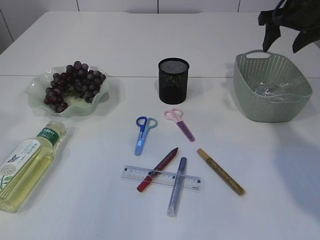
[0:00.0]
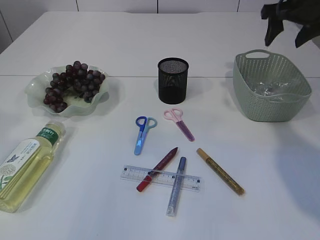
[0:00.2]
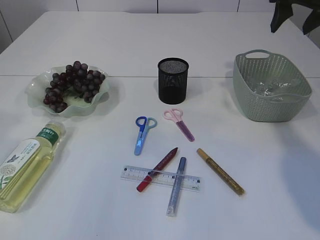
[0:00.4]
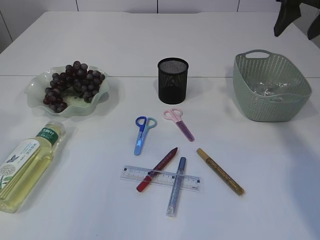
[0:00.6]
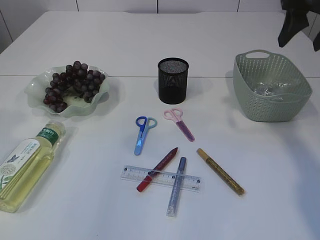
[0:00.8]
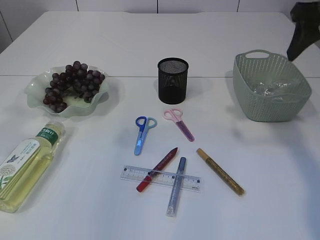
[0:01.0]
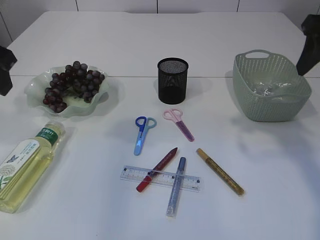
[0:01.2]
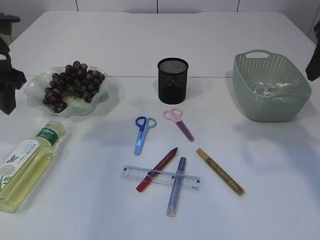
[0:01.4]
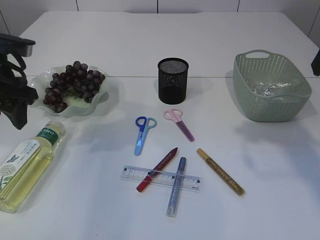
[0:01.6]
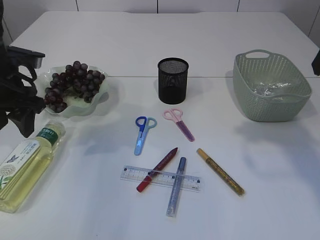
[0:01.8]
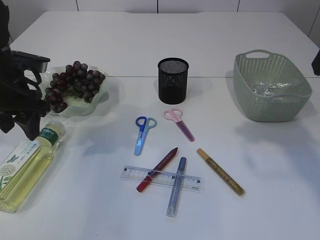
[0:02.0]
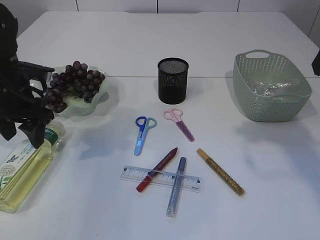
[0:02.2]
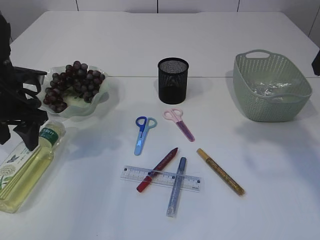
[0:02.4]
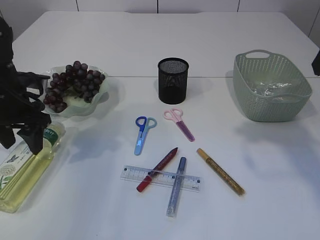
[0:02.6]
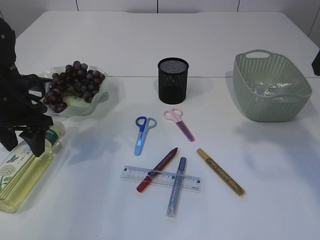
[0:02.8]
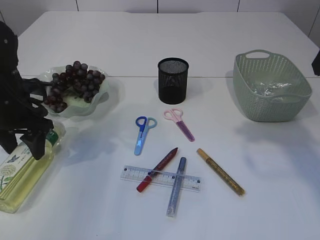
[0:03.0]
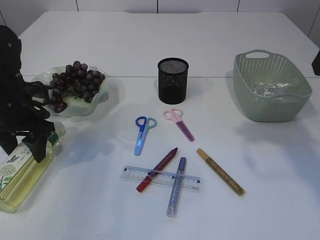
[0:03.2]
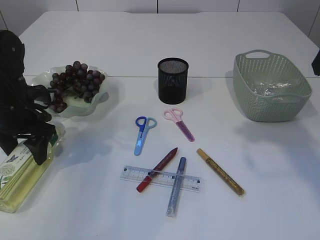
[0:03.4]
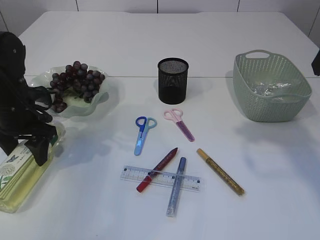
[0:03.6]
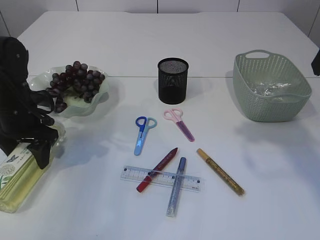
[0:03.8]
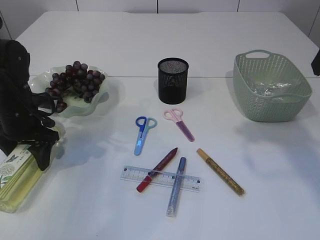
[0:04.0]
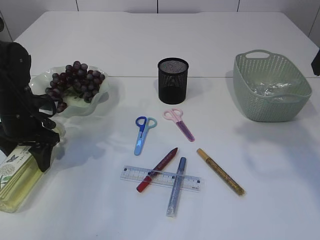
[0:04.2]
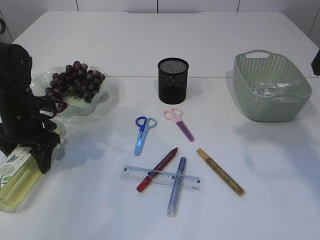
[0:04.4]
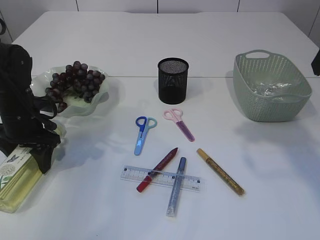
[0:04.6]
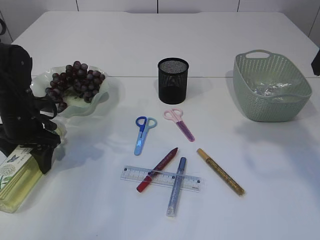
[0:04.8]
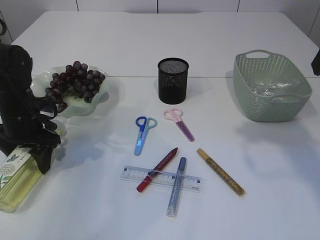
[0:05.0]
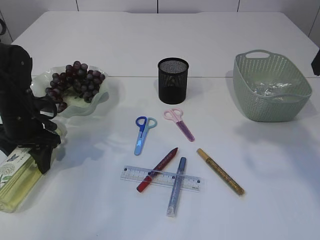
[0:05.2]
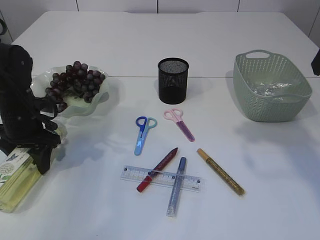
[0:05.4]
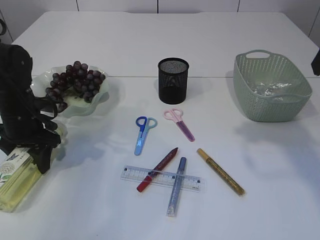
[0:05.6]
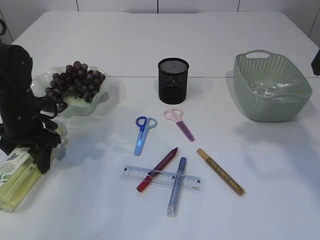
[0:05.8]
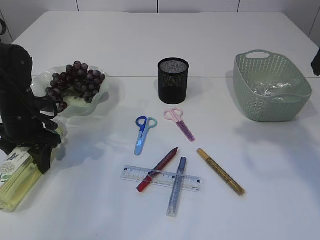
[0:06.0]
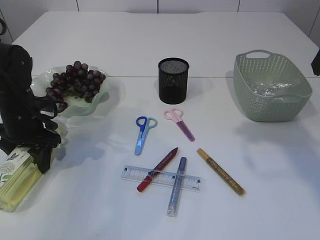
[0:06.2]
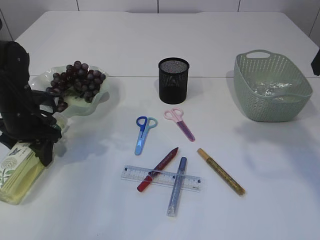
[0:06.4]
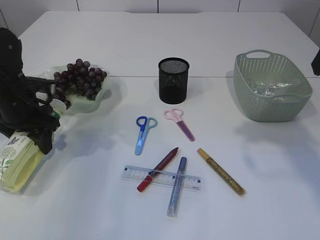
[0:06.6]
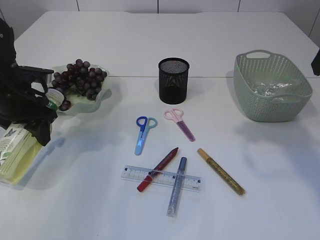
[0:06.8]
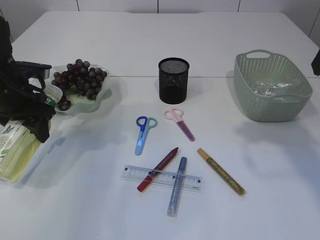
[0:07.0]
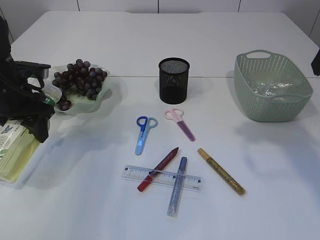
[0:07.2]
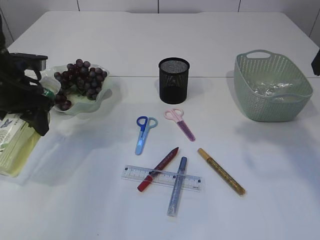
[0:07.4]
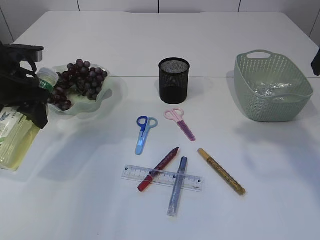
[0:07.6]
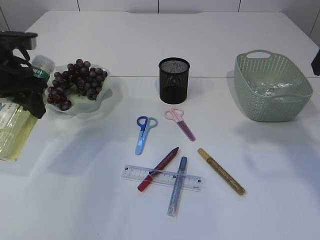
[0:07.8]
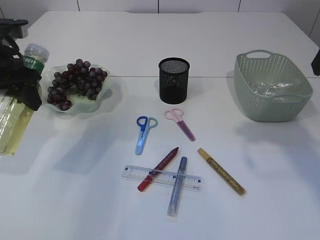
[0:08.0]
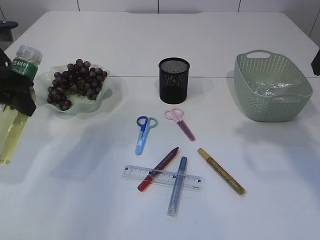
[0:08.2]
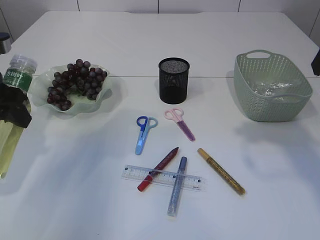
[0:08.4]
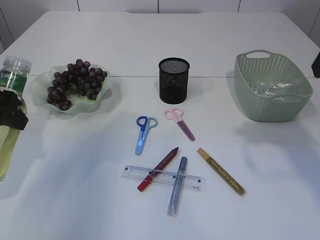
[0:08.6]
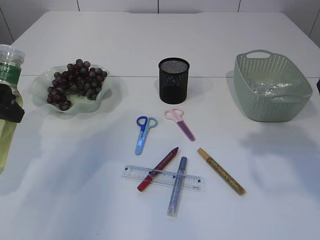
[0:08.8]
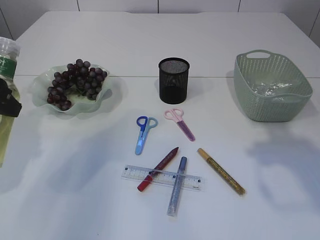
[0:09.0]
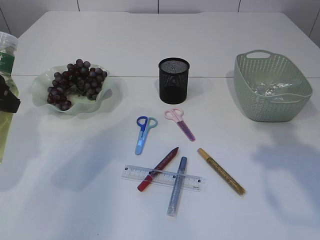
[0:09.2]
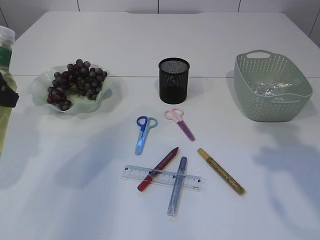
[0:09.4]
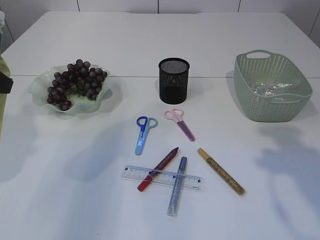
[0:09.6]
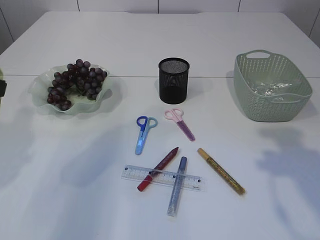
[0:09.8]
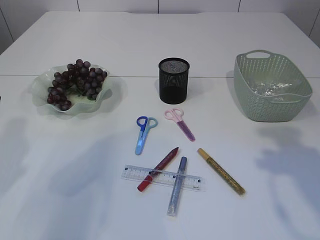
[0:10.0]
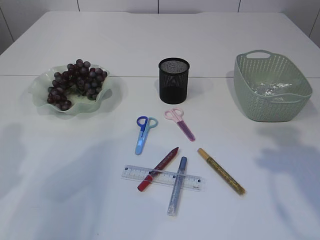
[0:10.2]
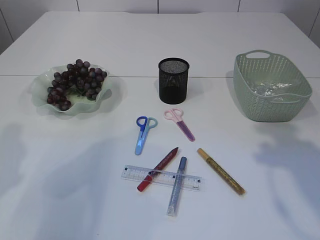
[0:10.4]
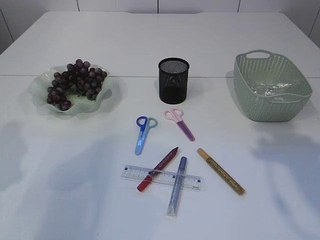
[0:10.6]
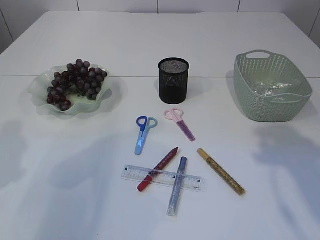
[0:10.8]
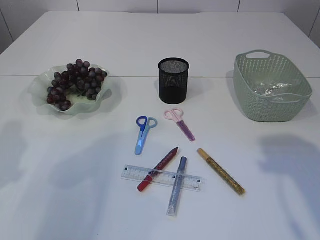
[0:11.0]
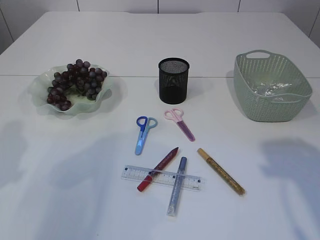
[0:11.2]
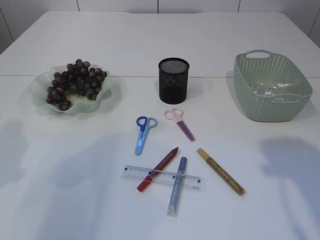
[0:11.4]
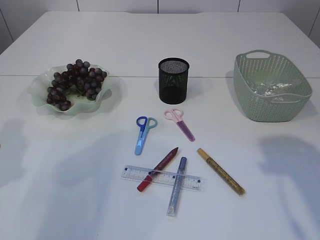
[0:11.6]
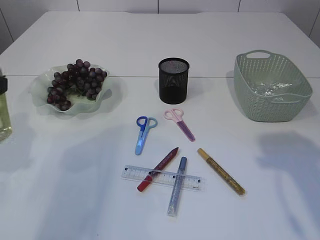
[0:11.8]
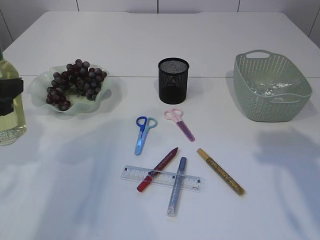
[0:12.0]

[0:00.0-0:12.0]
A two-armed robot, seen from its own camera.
Step, 0:00.0 to 0:07.4: Pick up the bottle with the left arm.
0:00.0 to 0:01.6: The right gripper goes roughly 20 cm backward; the left gripper moves downward and forward, some 20 cm.
0:01.6 to 0:03.0: The left gripper heads downward, covering approximately 10 cm.
0:03.0 to 0:04.4: There are only small adjustments of the grippers.
0:04.4 to 0:06.0: Neither gripper changes place.
0:06.0 to 0:07.6: The left gripper goes approximately 10 cm upward.
0:07.6 to 0:09.0: The left gripper is displaced backward and upward by approximately 10 cm.
0:09.0 to 0:10.4: The left gripper travels backward by roughly 10 cm.
0:10.4 to 0:12.0: The left gripper shifts approximately 5 cm forward.

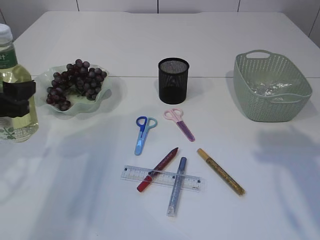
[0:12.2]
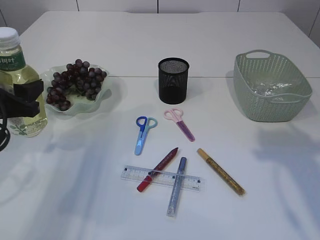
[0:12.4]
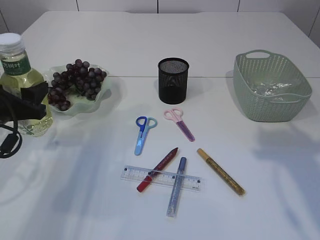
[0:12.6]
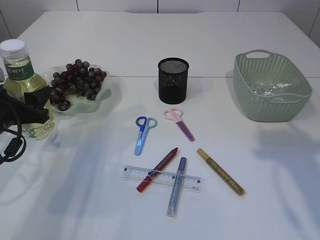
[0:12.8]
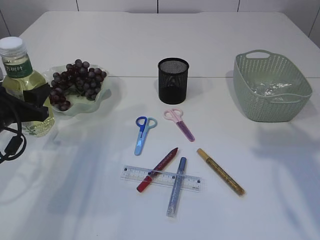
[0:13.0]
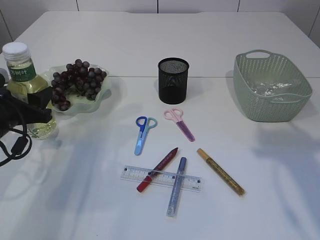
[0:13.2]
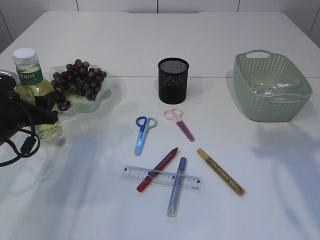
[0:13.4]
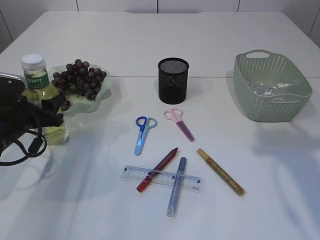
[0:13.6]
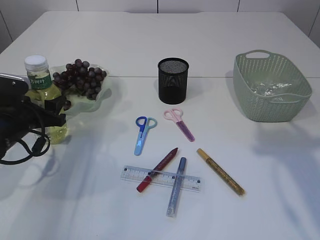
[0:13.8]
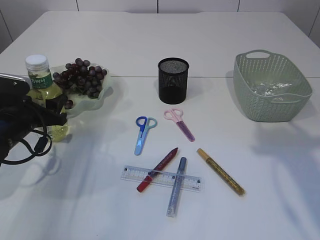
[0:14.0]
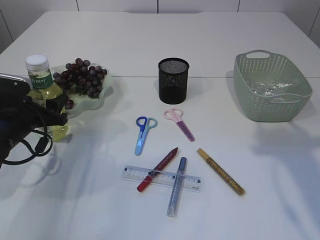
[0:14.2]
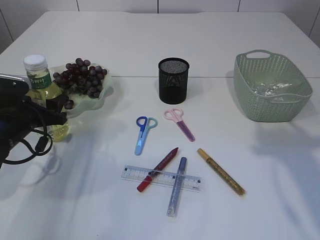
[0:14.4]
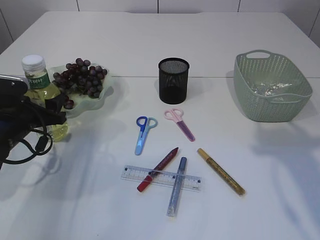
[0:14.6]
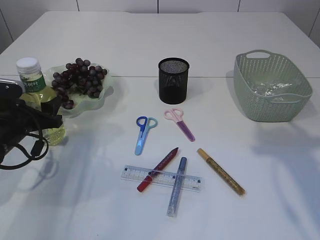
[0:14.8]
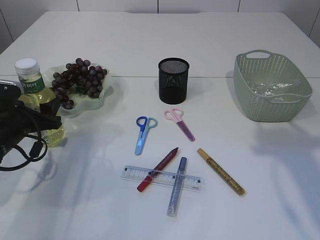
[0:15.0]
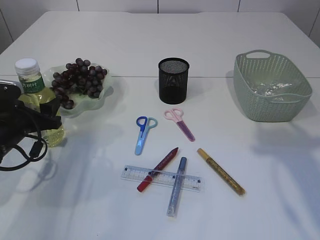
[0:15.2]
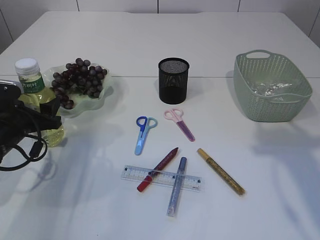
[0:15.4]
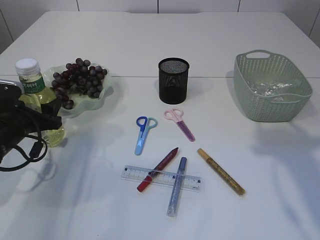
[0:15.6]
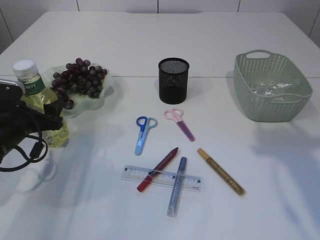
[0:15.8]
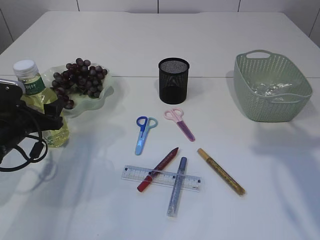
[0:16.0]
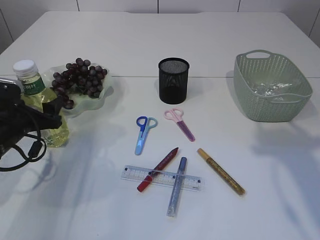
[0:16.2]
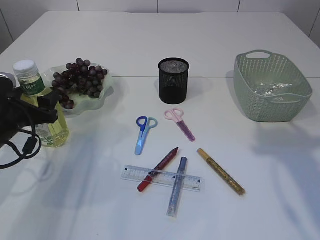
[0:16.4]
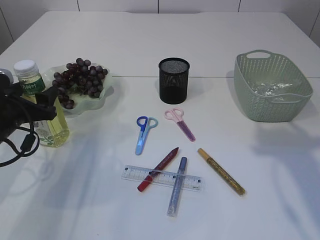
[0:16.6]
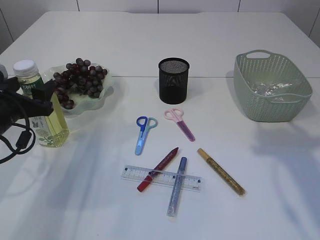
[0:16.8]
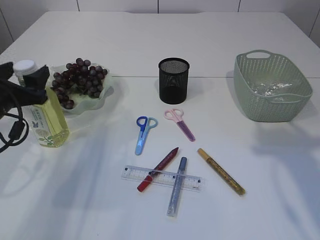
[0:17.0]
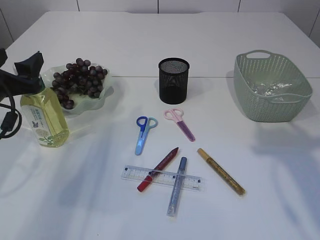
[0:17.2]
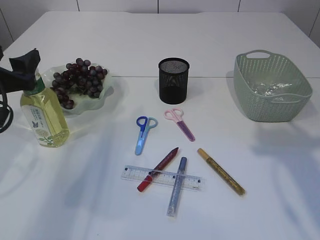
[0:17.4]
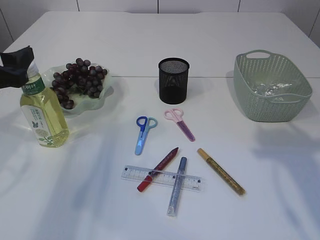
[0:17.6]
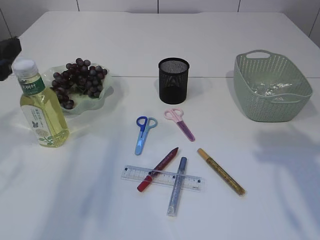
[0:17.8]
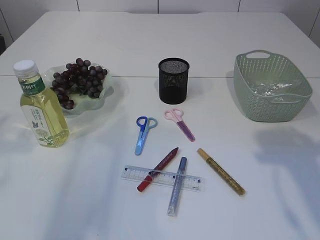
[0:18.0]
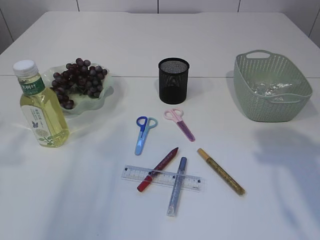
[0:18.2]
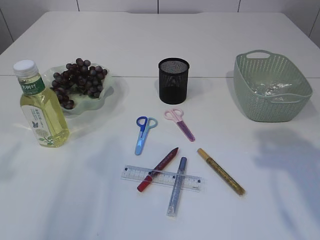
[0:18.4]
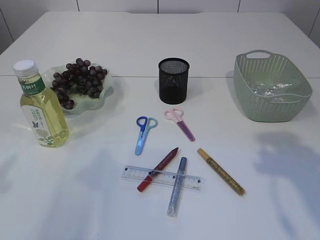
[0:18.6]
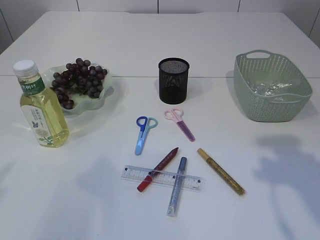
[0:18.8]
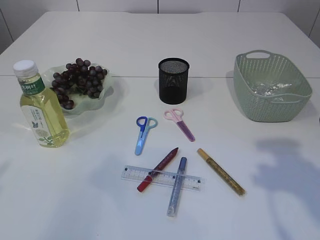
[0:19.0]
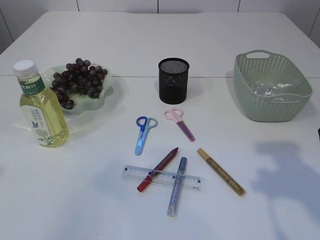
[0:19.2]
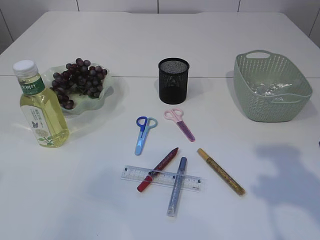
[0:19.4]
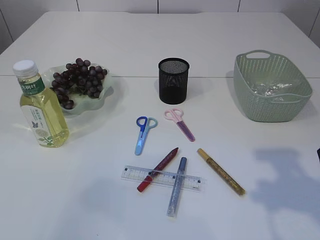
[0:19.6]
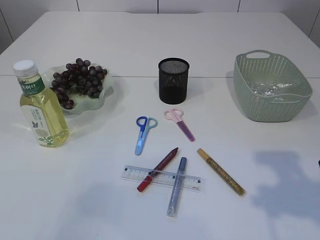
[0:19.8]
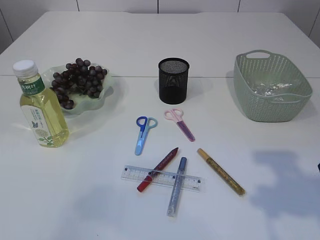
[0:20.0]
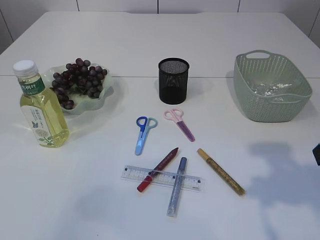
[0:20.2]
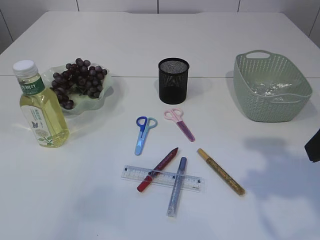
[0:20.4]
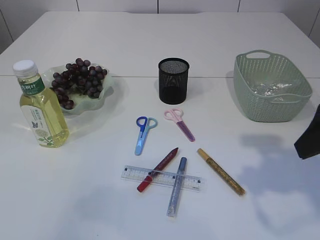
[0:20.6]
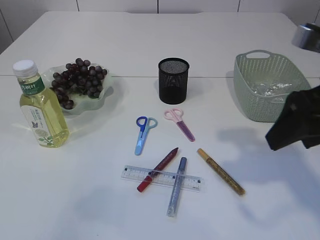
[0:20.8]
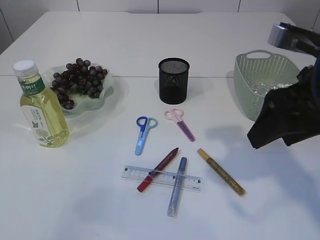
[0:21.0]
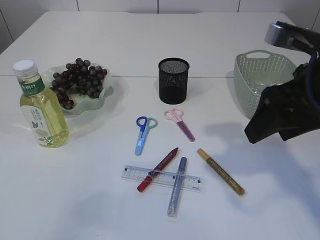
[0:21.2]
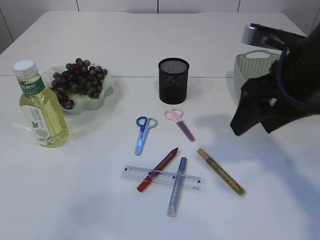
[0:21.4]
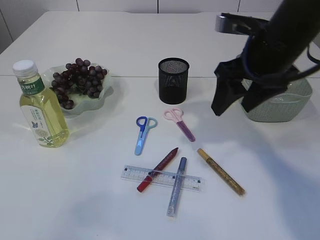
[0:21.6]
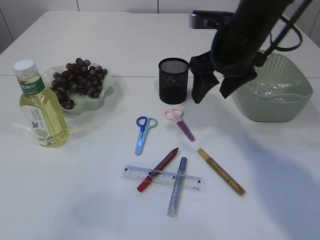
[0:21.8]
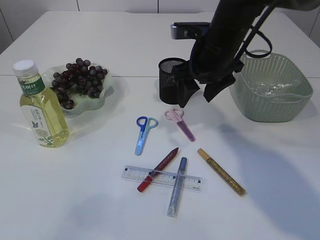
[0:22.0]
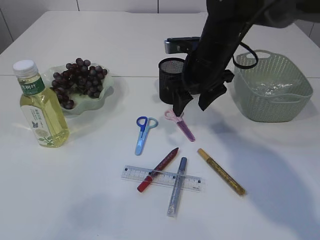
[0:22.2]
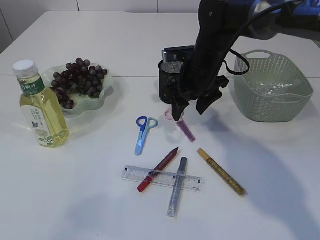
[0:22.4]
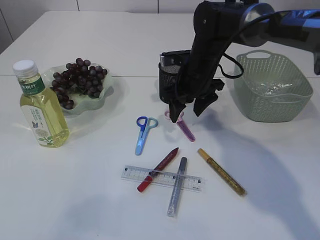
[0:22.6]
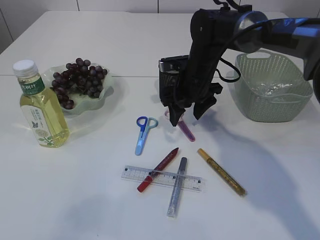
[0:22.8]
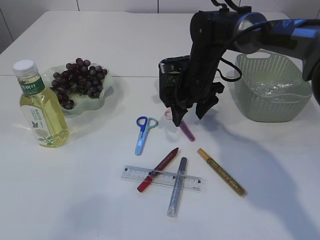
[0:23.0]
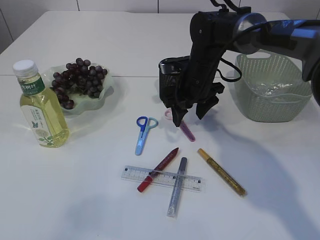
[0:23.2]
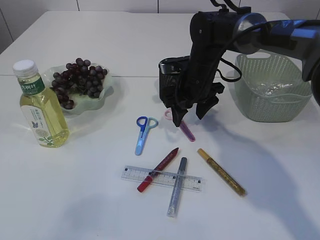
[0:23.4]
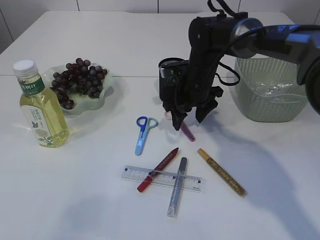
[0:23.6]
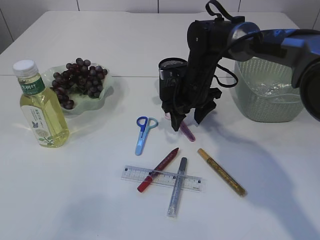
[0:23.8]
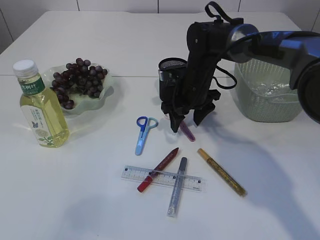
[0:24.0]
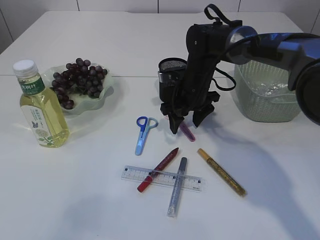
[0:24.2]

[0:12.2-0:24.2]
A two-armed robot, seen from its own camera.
Step, 0:12.2 to 0:17.6: Place the bottle.
0:12.2 to 0:13.8: The left gripper moves downward and forward, some 15 cm.
0:13.8 to 0:15.2: Both grippers stay about where they are.
0:15.2 to 0:16.6: The grippers make only small movements.
0:16.6 to 0:18.2: The left gripper shifts some 20 cm upward and backward.
0:18.2 to 0:19.8: The right gripper moves approximately 5 cm.
0:19.8 to 0:21.2: The right gripper moves forward and to the left, about 10 cm.
0:21.2 to 0:22.6: The right gripper travels forward, downward and to the left by roughly 25 cm.
0:22.6 to 0:24.2: There are only small adjustments of the grippers.
